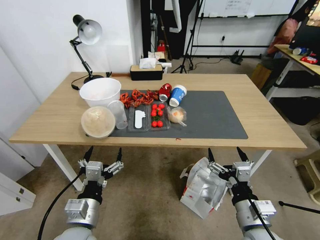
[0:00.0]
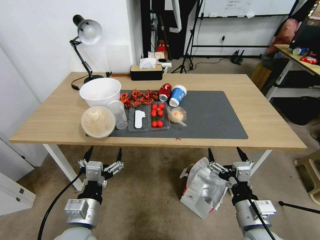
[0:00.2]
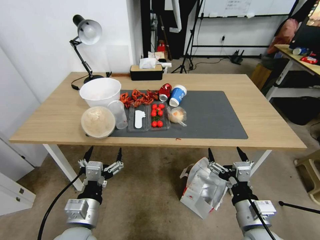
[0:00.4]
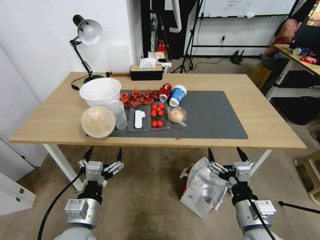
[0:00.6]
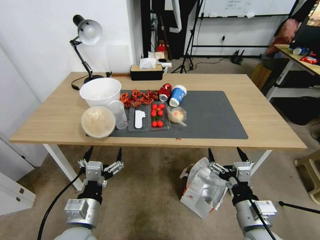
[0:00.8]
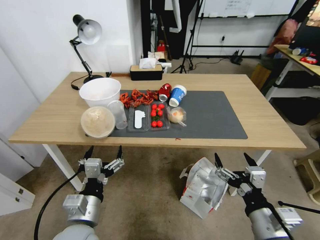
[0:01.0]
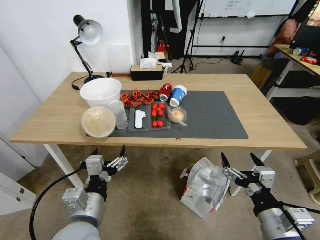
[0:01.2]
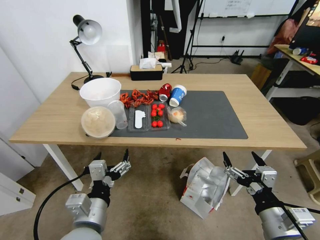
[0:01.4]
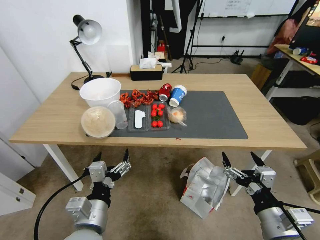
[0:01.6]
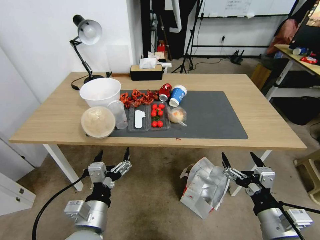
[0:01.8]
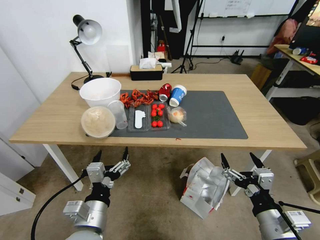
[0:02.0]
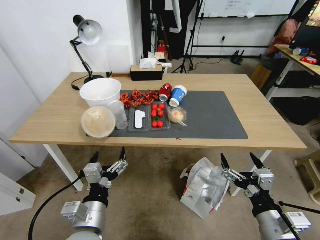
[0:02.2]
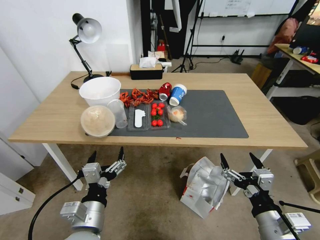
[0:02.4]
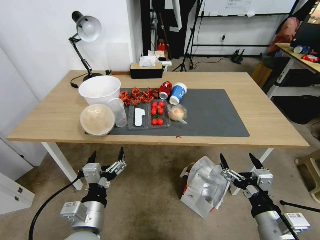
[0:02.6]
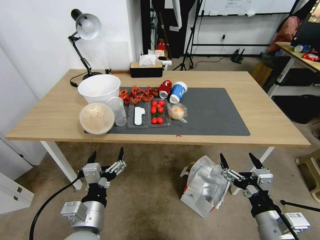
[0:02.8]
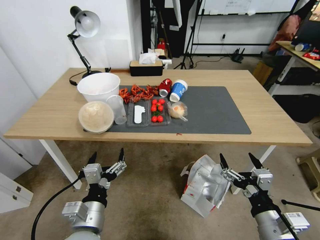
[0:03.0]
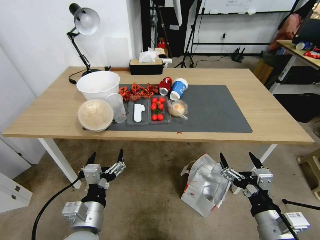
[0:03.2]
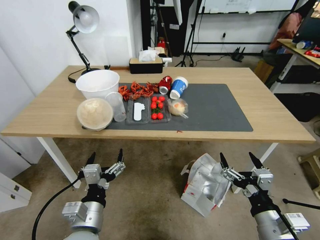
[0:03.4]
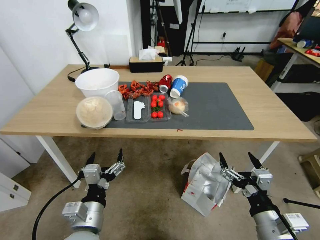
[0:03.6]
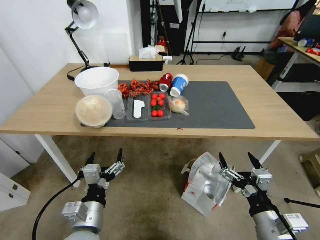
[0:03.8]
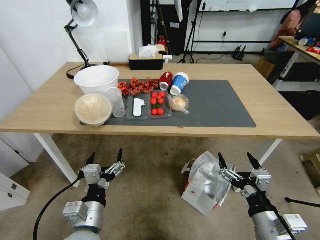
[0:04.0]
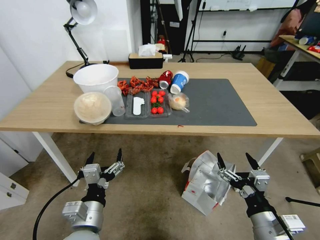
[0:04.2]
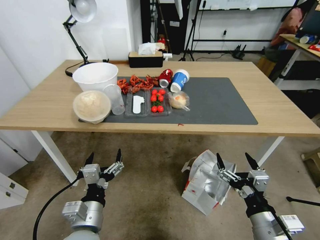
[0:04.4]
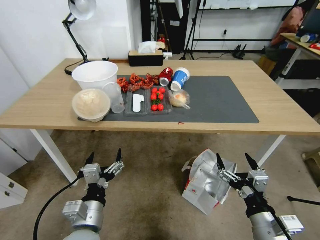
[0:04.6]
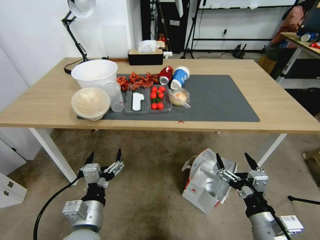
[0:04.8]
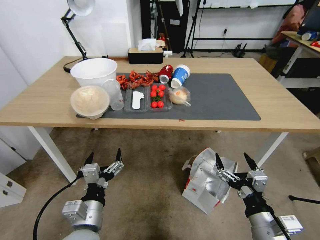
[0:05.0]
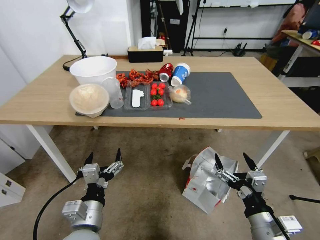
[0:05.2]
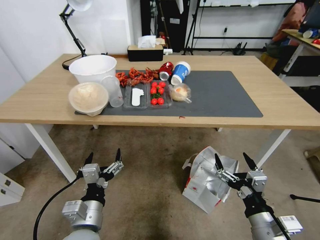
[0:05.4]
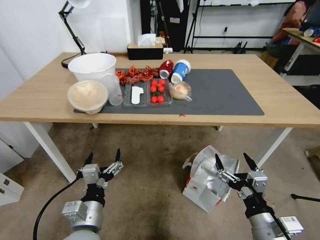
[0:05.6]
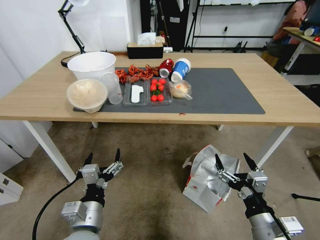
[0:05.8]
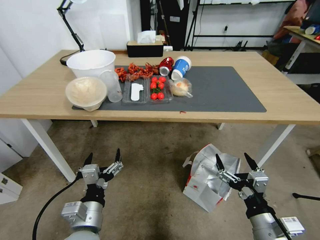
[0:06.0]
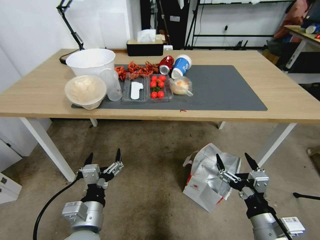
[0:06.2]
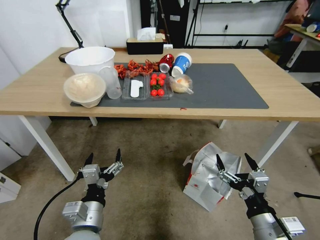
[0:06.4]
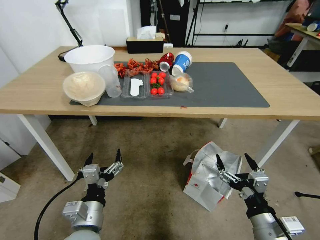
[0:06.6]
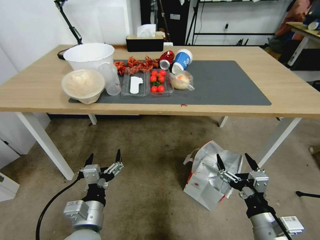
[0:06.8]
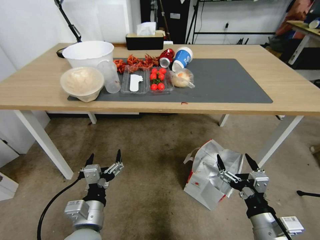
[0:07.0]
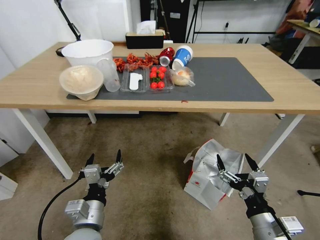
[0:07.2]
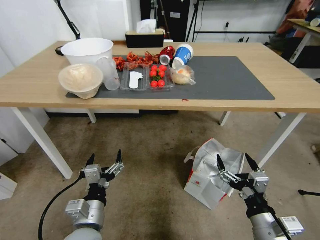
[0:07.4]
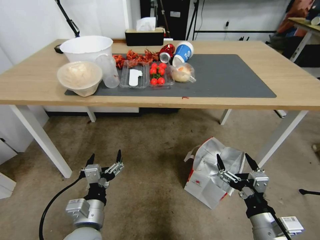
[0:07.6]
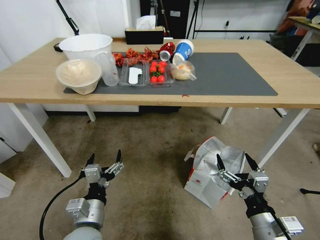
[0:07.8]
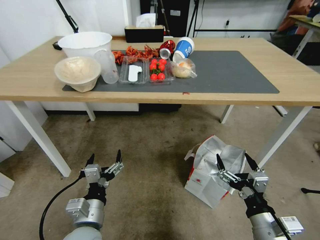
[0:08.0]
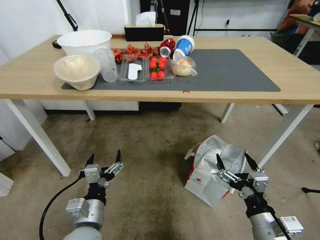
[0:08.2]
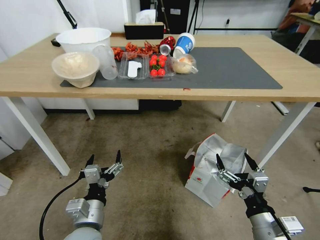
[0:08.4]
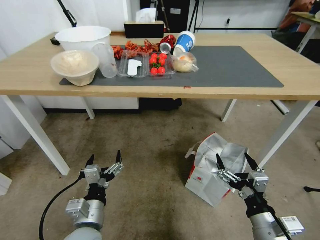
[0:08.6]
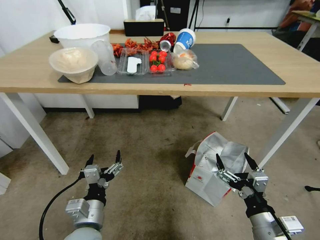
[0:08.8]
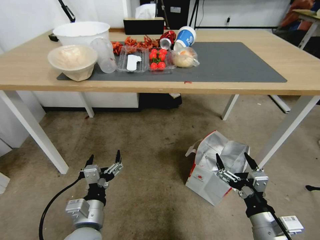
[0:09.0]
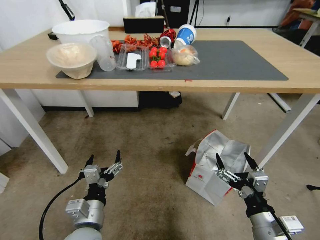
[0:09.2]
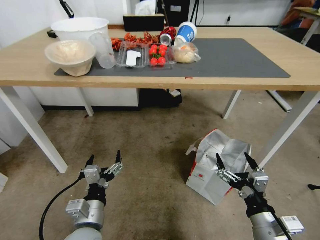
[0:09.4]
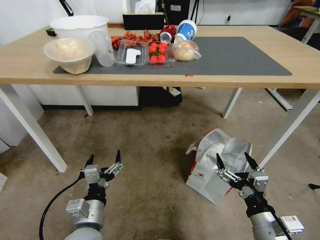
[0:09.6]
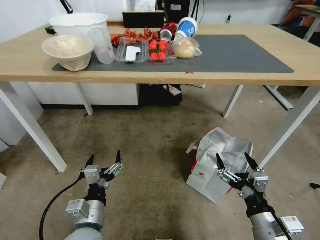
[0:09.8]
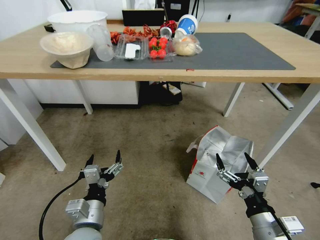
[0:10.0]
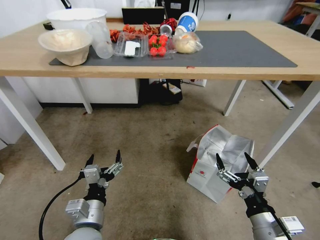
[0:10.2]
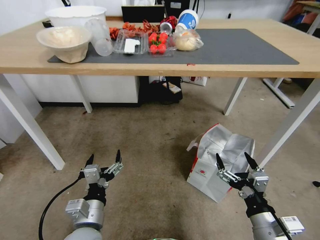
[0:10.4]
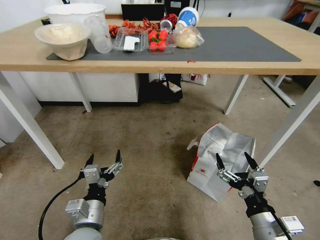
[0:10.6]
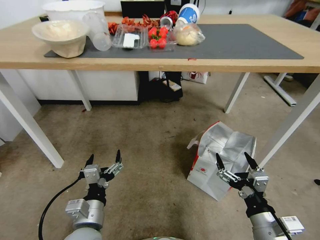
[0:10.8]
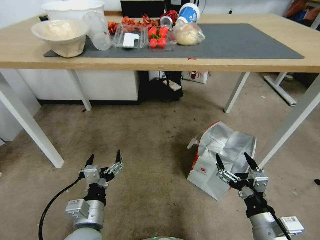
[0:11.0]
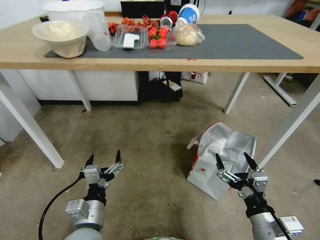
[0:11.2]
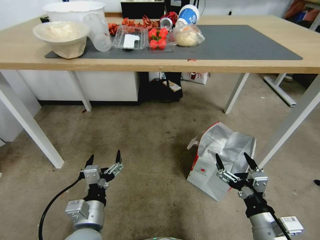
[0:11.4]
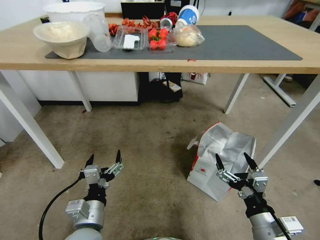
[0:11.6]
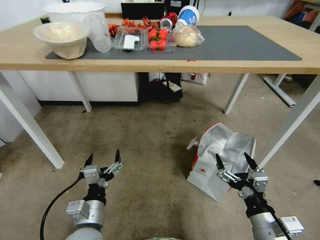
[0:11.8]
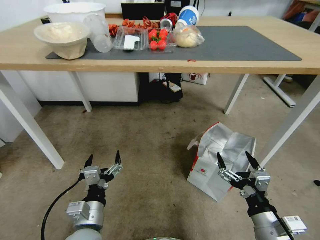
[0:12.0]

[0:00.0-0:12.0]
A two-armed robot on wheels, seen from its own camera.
Task of the whole recording: Pick up the food delivery bag from the floor and place it on the table.
0:10.4 to 0:12.0: The two grippers keep their place.

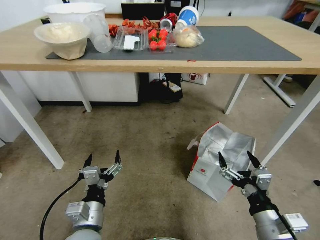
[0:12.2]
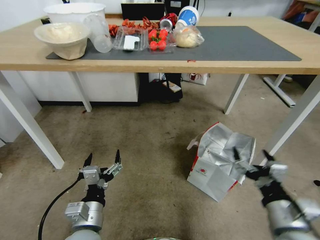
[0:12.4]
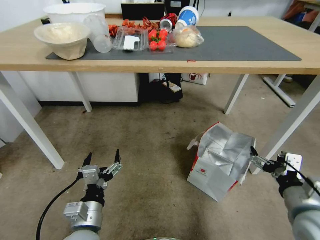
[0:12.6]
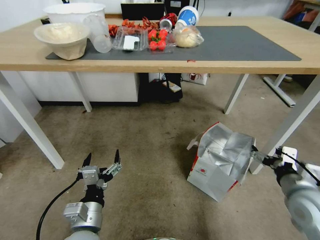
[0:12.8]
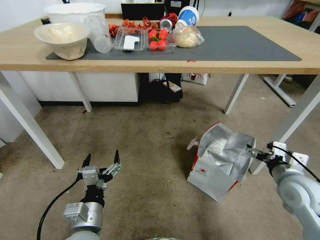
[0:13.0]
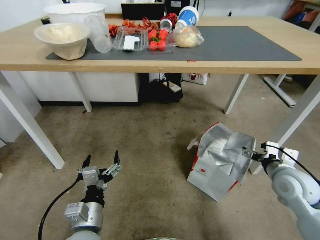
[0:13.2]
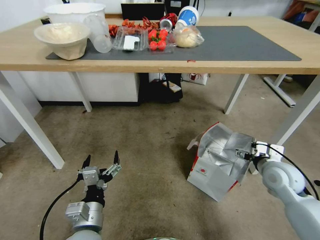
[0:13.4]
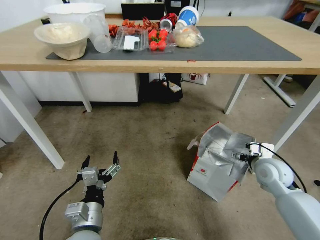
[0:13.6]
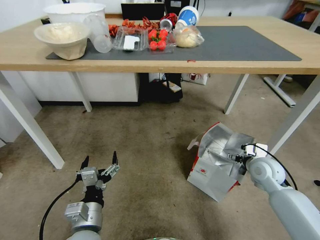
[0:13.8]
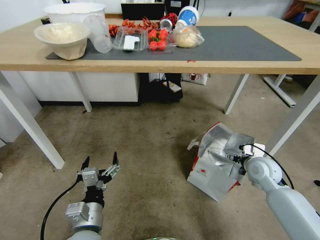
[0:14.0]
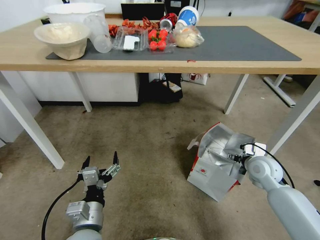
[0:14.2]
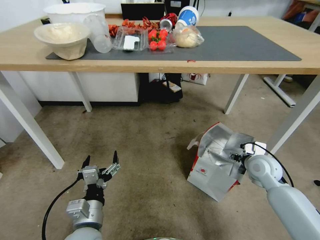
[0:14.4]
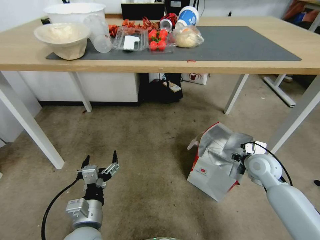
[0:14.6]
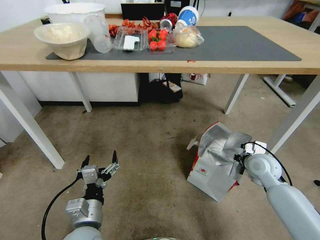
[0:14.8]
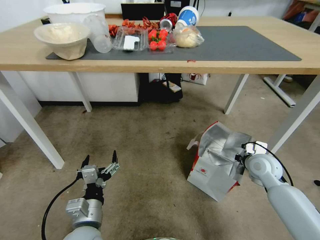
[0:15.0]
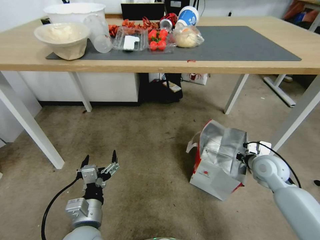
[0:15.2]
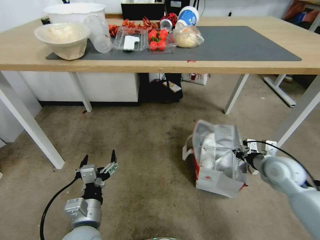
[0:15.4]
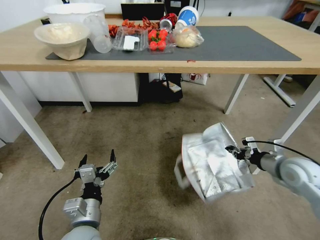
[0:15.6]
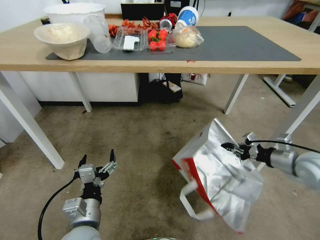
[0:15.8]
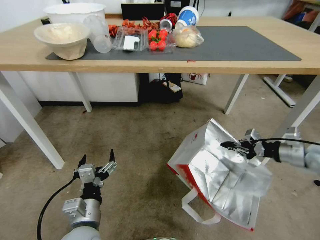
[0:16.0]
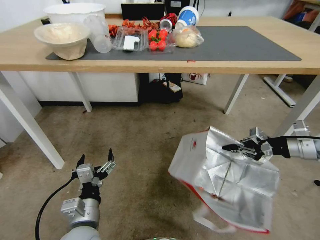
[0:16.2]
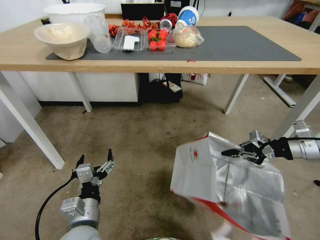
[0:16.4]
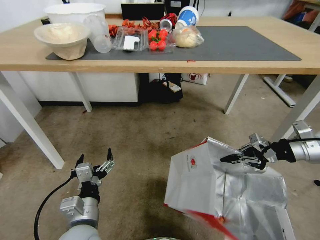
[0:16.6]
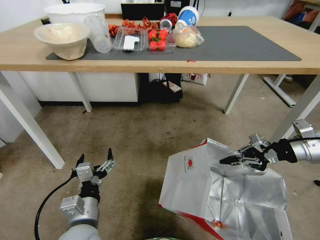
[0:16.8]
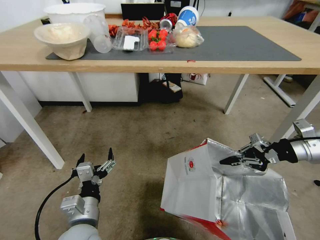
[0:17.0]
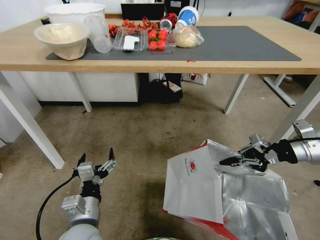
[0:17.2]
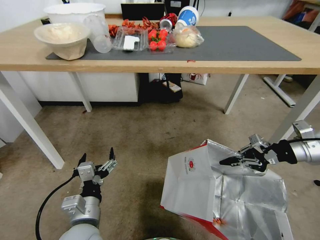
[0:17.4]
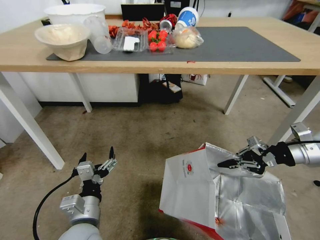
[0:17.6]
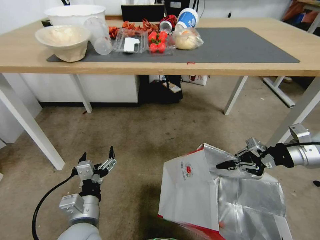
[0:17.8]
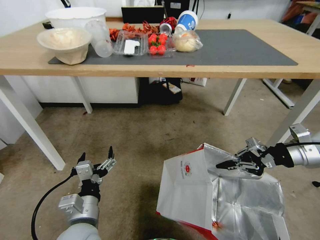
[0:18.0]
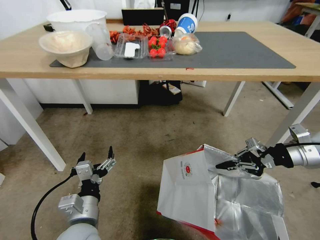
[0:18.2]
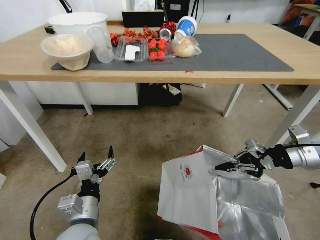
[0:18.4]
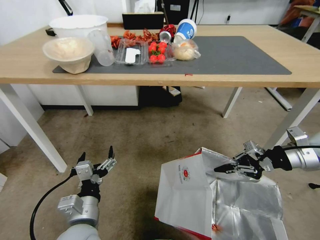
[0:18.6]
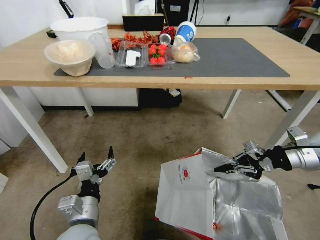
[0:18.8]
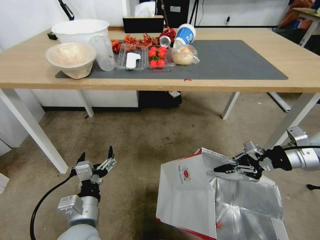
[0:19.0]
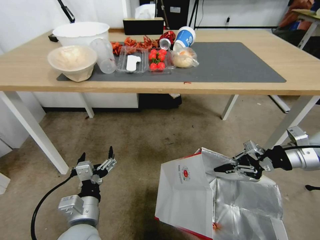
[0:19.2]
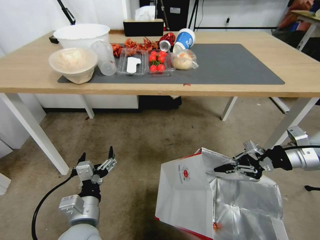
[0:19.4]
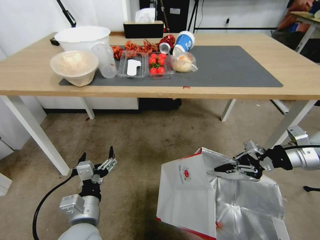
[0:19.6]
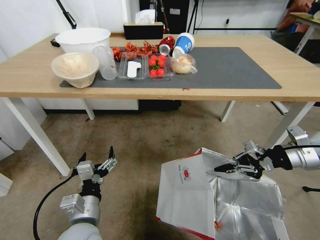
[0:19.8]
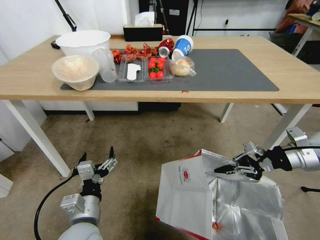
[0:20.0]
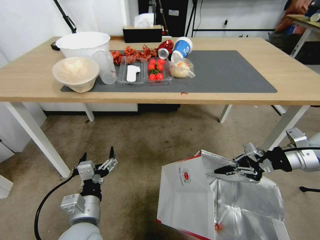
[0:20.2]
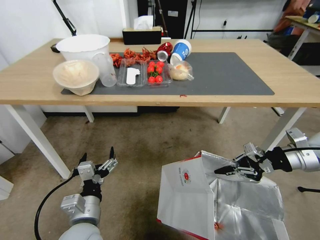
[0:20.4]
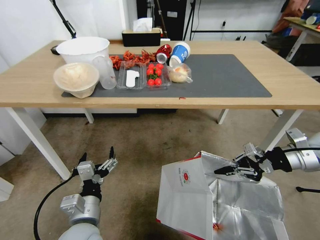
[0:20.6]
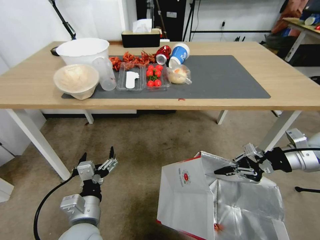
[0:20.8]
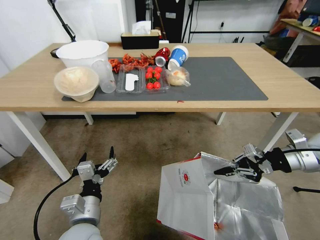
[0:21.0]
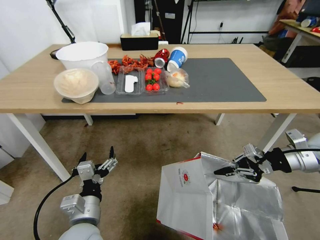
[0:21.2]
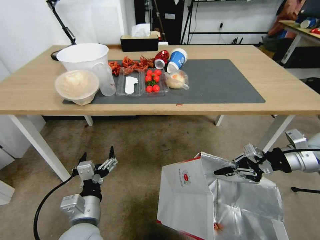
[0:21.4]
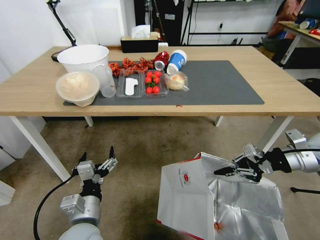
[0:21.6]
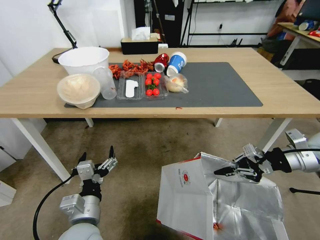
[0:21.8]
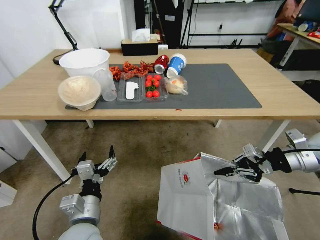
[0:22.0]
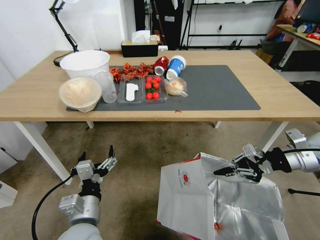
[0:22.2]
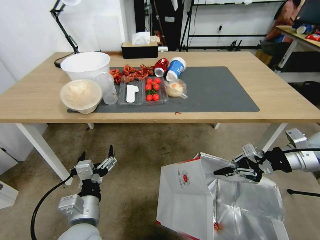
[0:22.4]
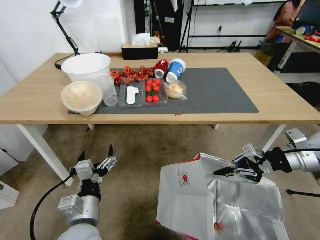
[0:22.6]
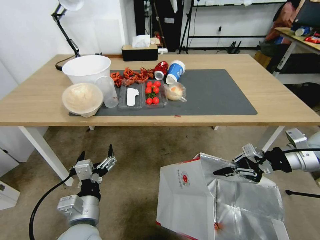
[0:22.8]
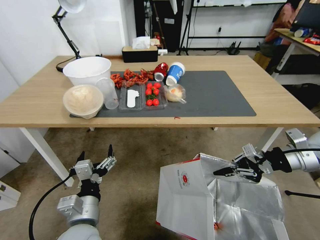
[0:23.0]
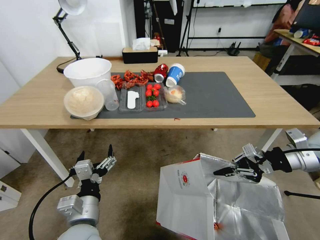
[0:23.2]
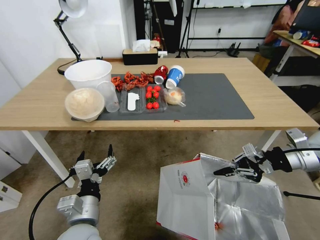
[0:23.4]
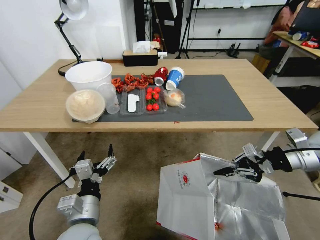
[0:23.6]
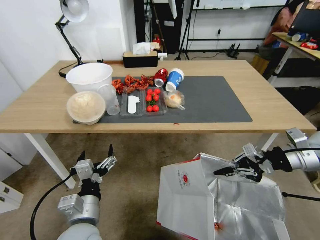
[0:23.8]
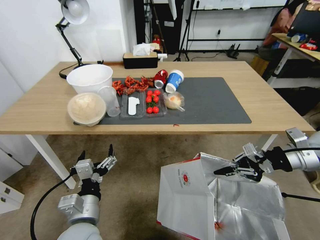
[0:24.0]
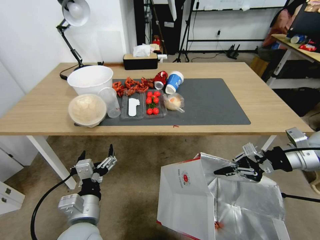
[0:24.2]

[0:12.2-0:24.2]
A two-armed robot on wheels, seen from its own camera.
Task of the whole recording: Pick up the food delivery bag from the floor and place it on the table.
0:12.2 to 0:13.8: The right gripper is displaced forward by some 25 cm.
0:13.8 to 0:15.2: The right gripper closes its fingers.
0:15.2 to 0:16.6: The right gripper goes some 20 cm upward and to the right.
